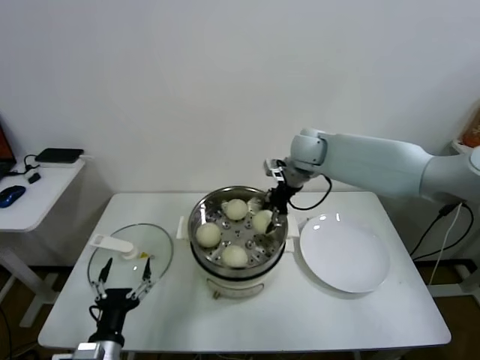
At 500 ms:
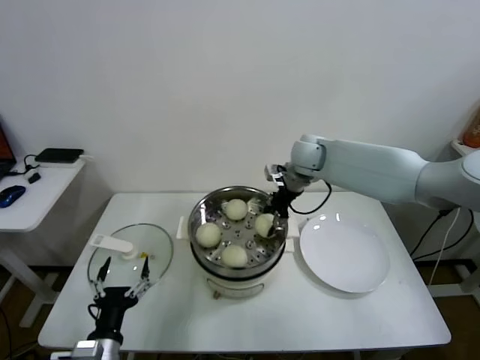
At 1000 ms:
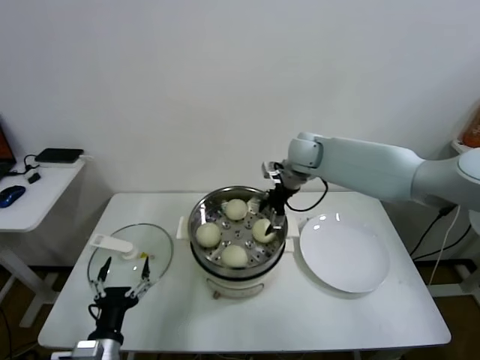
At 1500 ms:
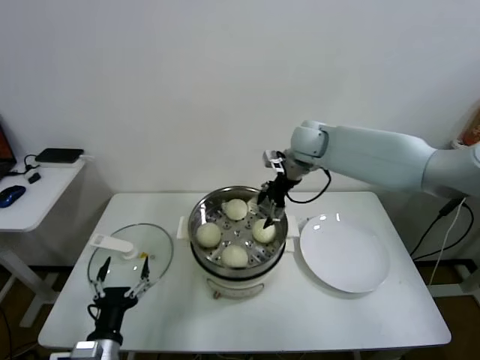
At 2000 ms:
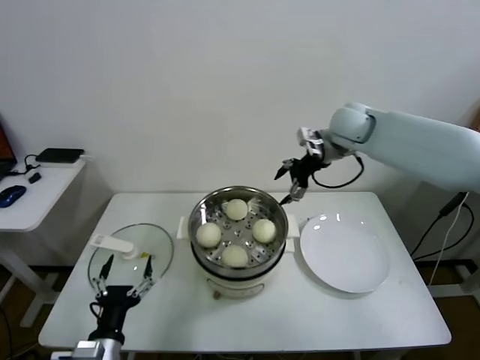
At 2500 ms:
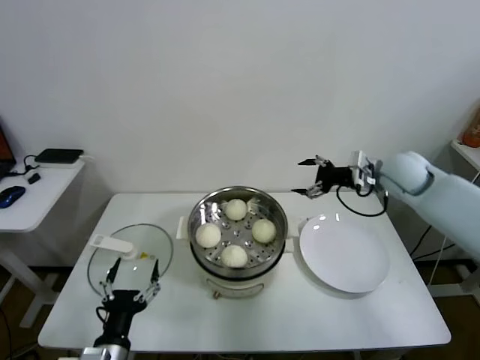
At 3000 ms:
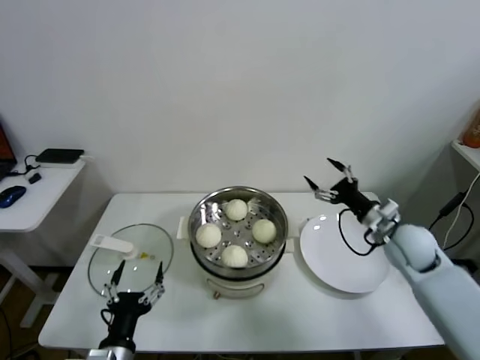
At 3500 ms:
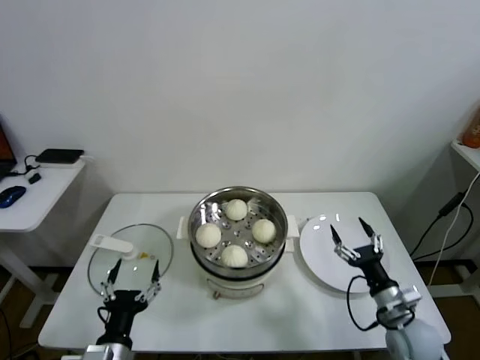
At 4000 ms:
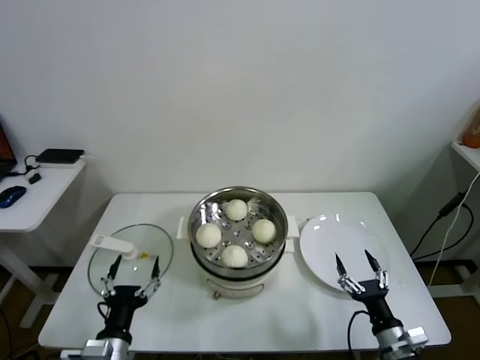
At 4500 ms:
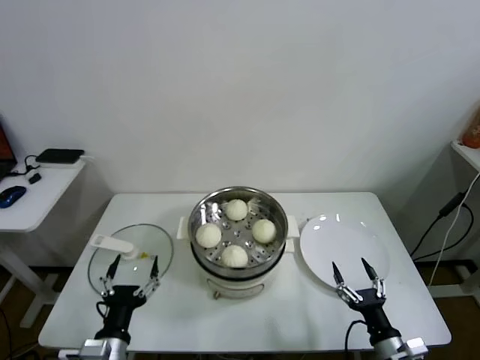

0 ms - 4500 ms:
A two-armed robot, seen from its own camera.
Task of the whole recording: take steamed baozi put them in steamer.
0 ms - 2000 ms: The right gripper goes approximately 10 cm to the right and upward, and opens its fingers.
2000 ms - 4500 ms: The right gripper goes approximately 50 cm backward and downward.

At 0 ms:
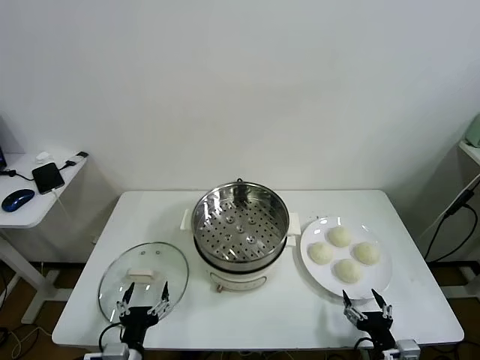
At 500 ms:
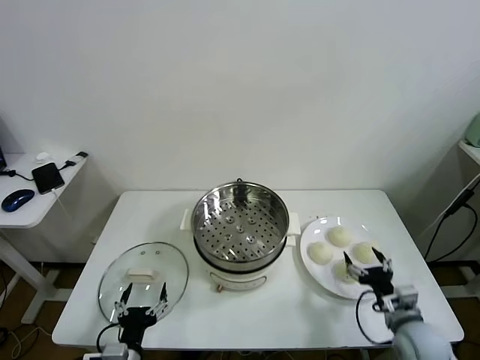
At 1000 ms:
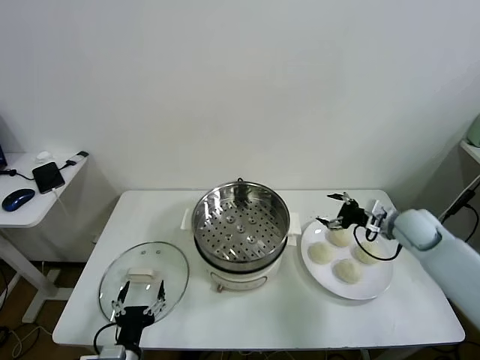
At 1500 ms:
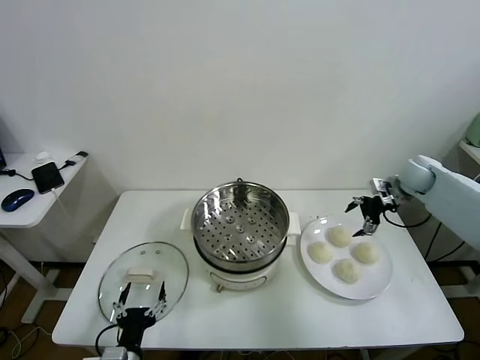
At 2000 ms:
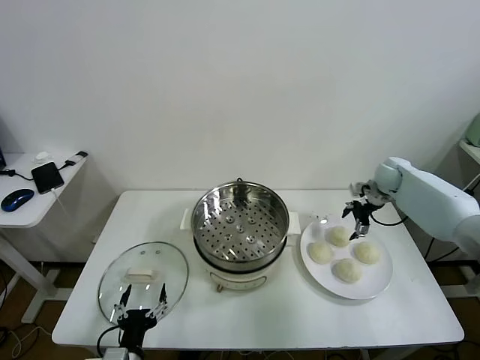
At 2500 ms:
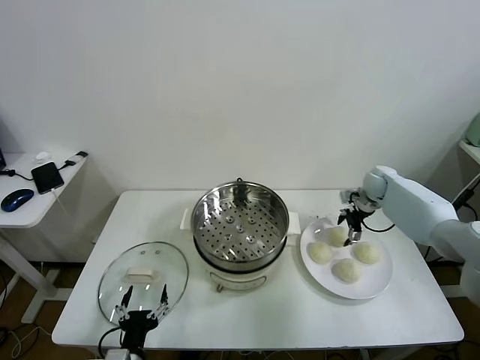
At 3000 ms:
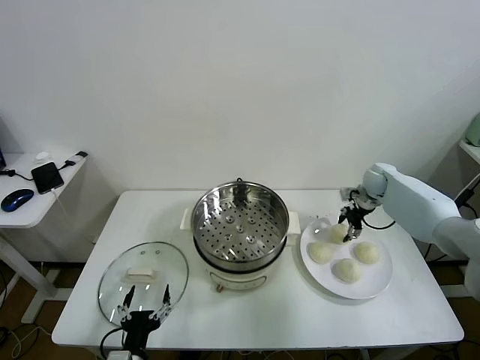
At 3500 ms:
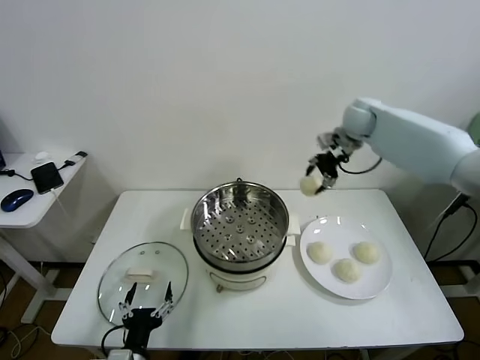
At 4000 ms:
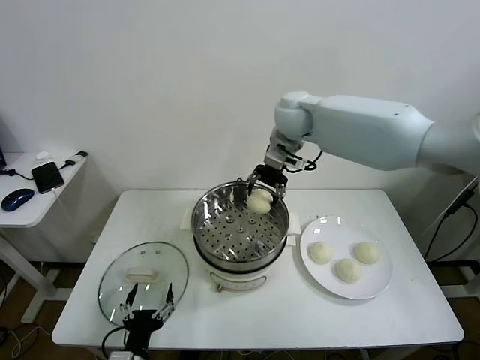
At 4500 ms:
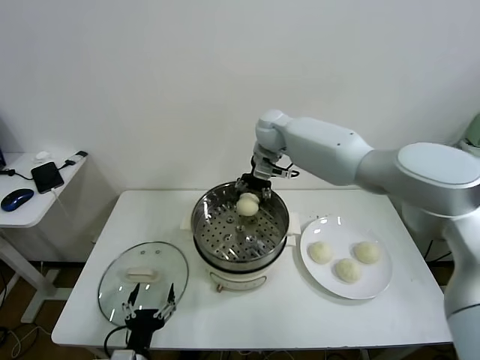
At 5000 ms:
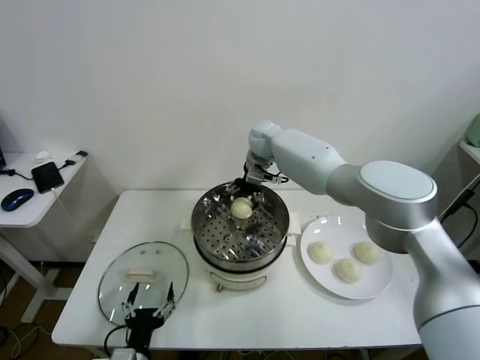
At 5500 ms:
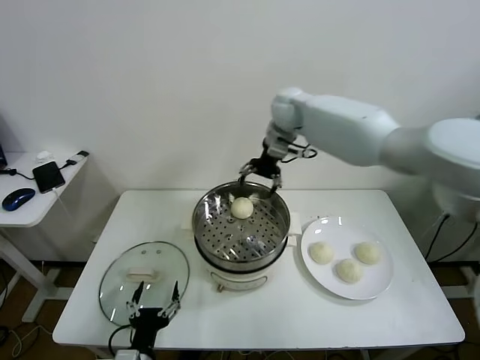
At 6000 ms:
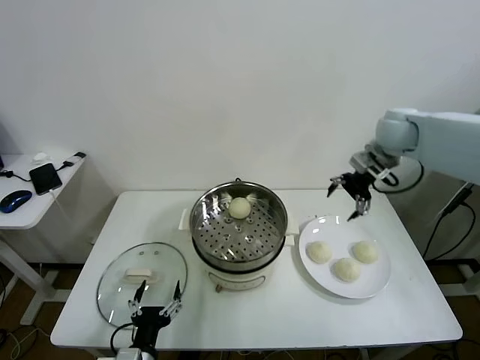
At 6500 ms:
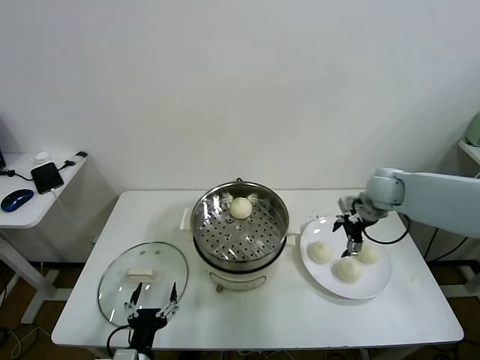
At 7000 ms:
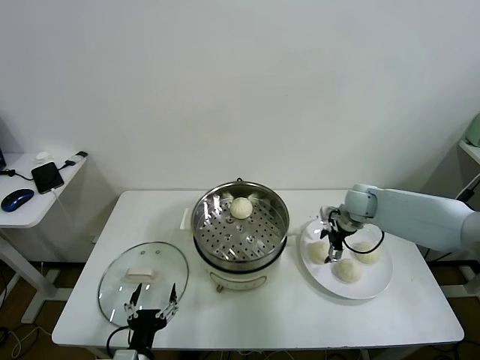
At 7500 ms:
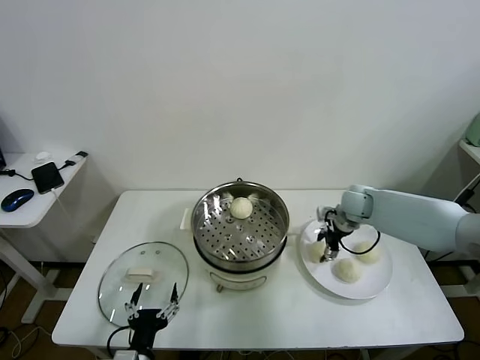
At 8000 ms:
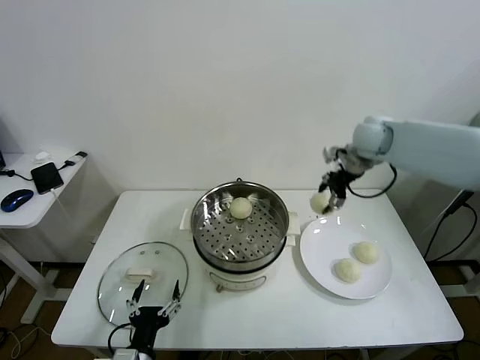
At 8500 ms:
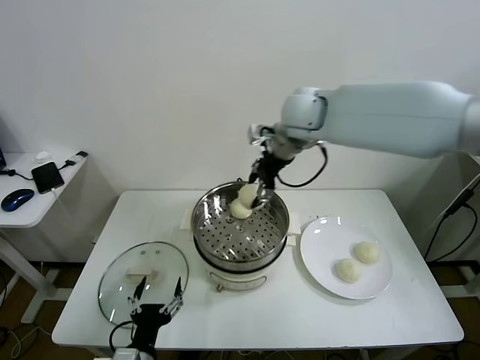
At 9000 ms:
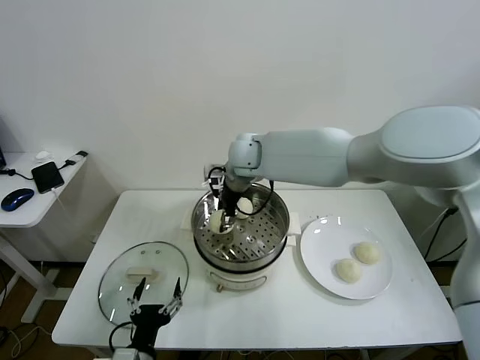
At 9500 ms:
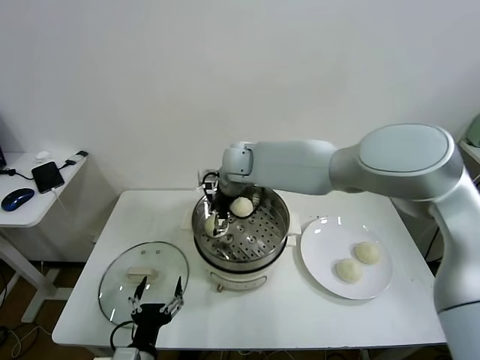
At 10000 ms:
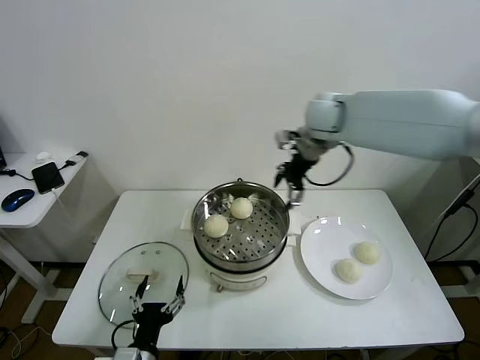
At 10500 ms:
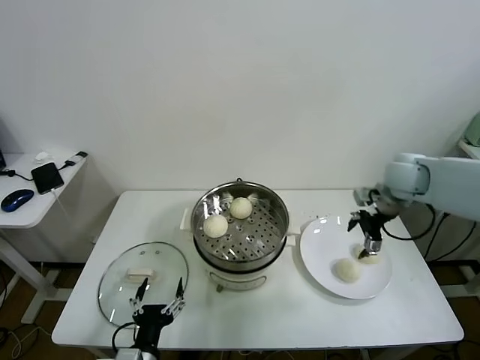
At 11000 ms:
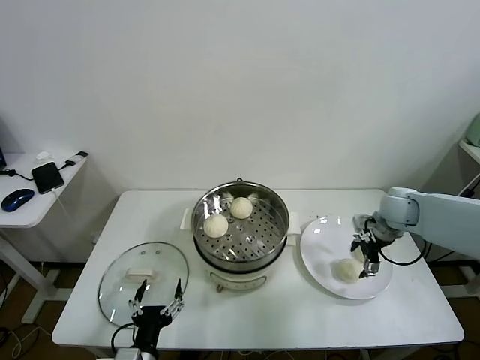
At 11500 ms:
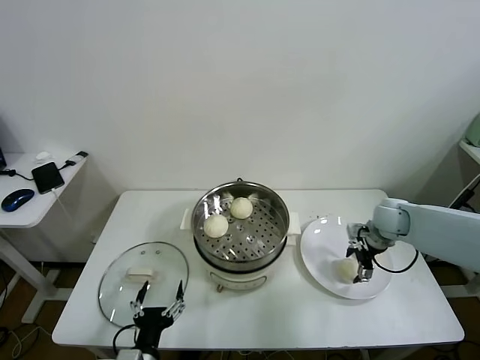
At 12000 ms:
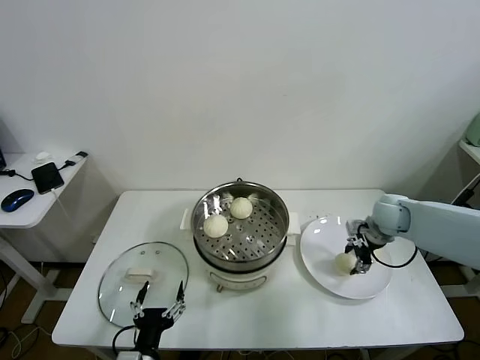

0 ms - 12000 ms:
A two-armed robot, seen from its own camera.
Task of the whole recording: take steamed baozi put them in steamer.
Step, 0 ms - 2500 ms: Grasp the baozi in the plate with right gripper.
Step, 3000 ms - 4500 ms: Place the baozi on the steamer with right gripper.
Step, 5500 ms - 7500 ms: Grasp the baozi in the plate with right gripper.
Step, 8000 ms - 9000 ms: Place the baozi on the steamer with right gripper.
Step, 9500 ms - 11500 ms: Grasp the baozi in the plate with right gripper.
2000 ms - 4000 ms: The right gripper travels to the left and upward by about 35 cm, and closes up.
4000 ms - 6000 ms: The right gripper is displaced to the right by approximately 25 cm, and opens.
6000 ms - 8000 ms: The right gripper moves to the left, about 5 cm, moves some 20 cm downward and comes back, and closes.
8000 ms - 10000 ms: The right gripper moves about 25 cm to the left and comes back, and opens.
10000 ms - 12000 ms: The right gripper moves downward and to the right, approximately 25 cm, and closes its fingers.

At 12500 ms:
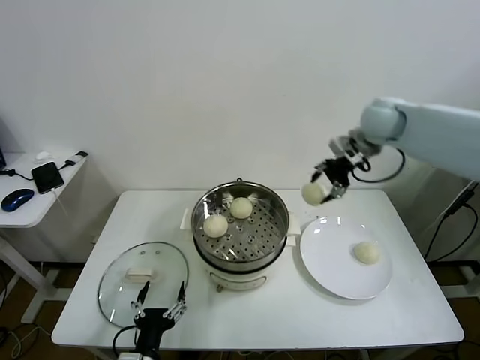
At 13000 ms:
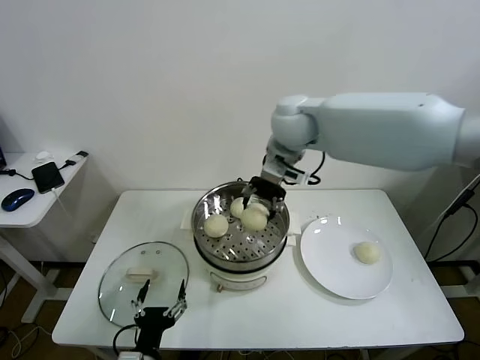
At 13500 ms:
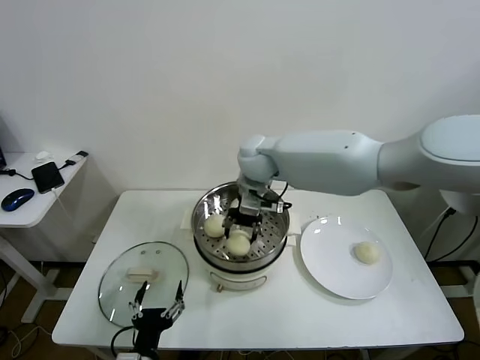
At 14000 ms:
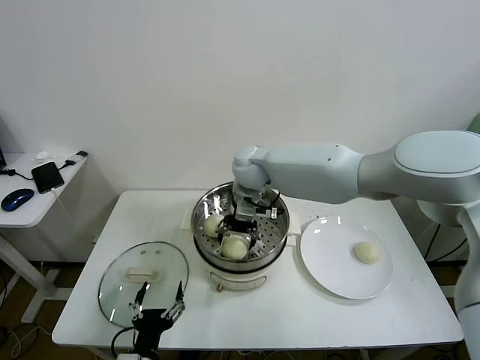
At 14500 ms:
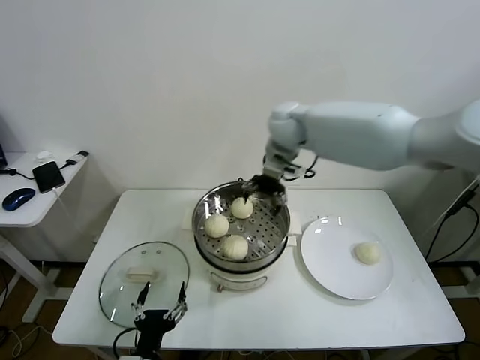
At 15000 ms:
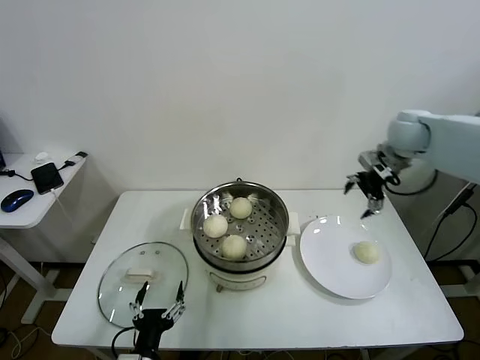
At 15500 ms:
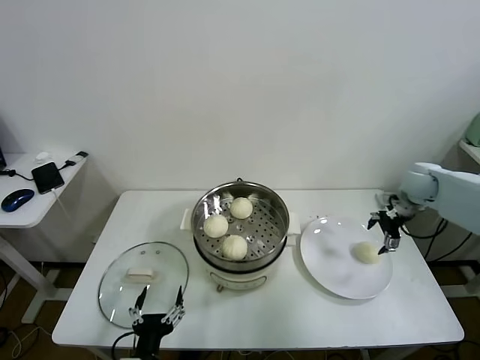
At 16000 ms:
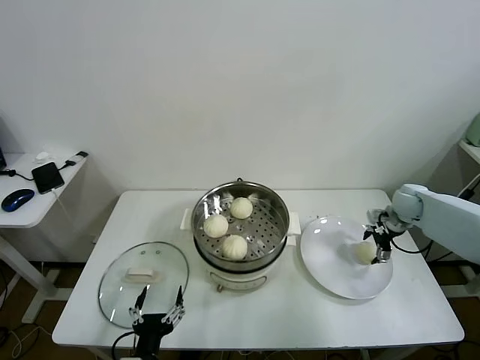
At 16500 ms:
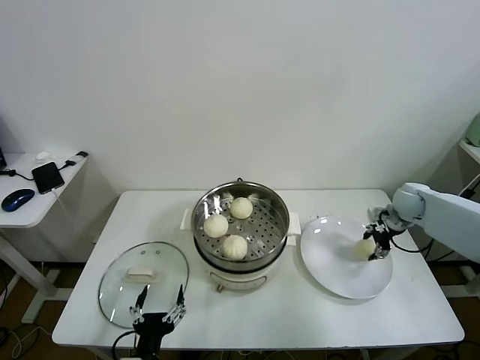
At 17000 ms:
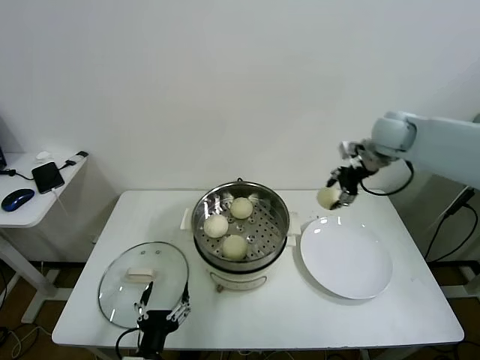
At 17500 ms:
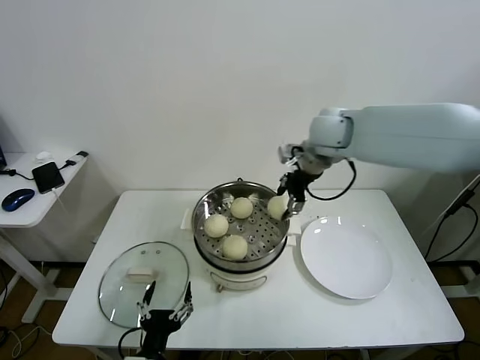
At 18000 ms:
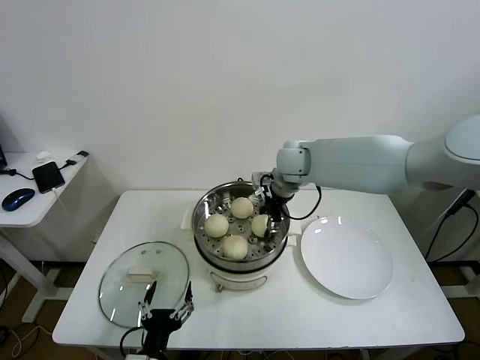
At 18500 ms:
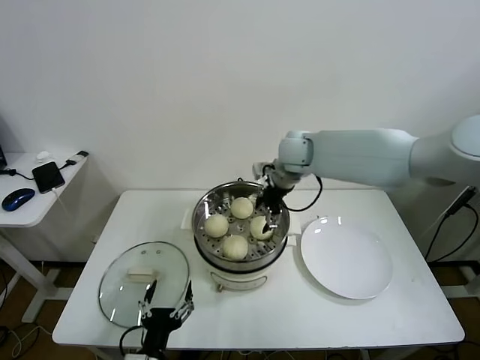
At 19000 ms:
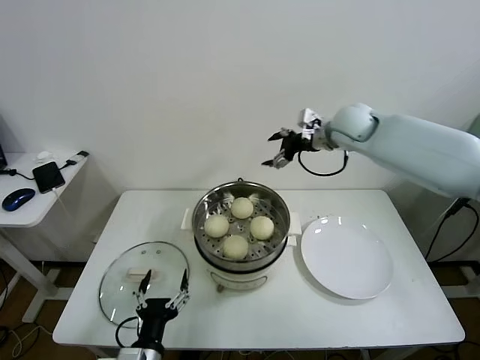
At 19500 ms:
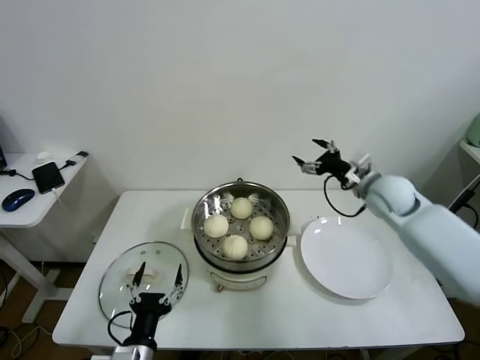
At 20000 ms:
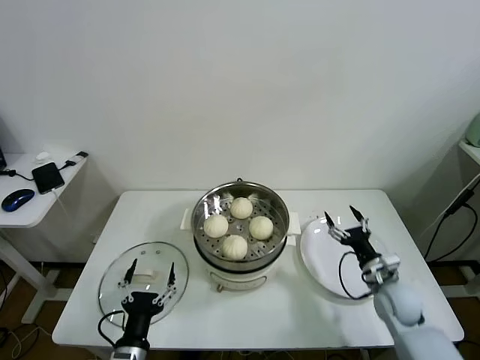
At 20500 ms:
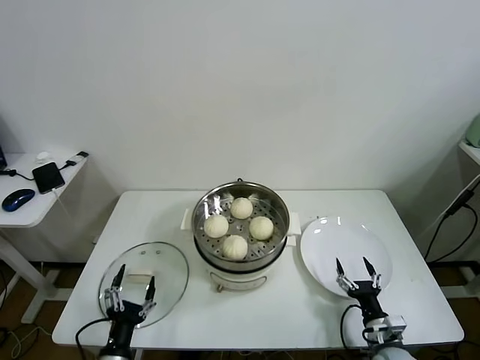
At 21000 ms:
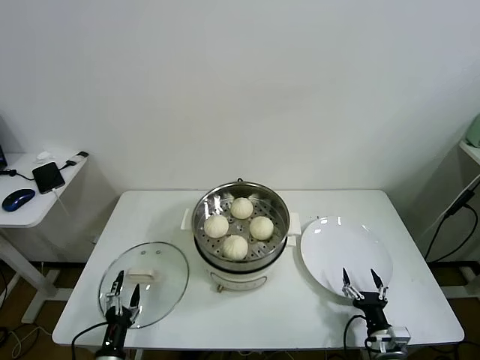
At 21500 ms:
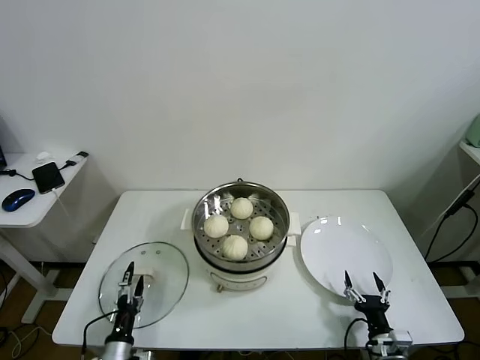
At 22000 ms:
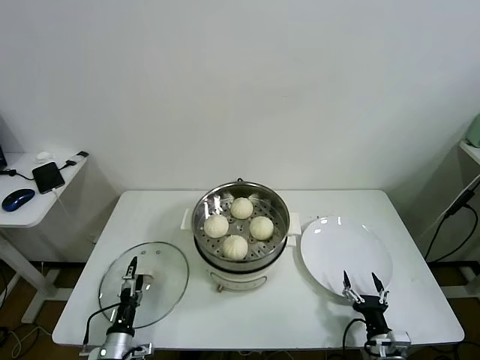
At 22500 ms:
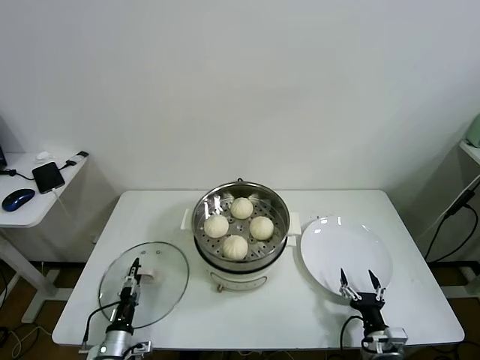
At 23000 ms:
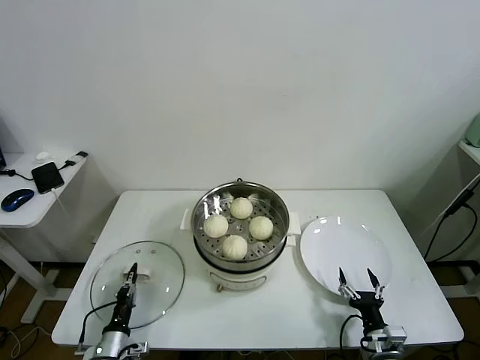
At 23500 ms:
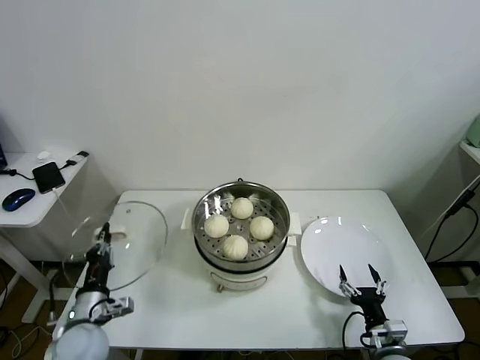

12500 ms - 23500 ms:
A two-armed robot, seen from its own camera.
Task of the whole recording: take steamed baozi put them in steamer.
Step, 12500 ms - 14000 ms: Place the baozi on the steamer with right gripper.
Step, 14500 ms - 16000 ms: Grasp the baozi in the plate with right gripper.
Step, 17000 ms - 18000 ms: Place the baozi on the steamer with right gripper.
Step, 18500 ms - 22500 ms: Grasp the pot lid with left gripper.
12500 ms - 14500 ms: The right gripper shifts roughly 15 cm to the left, and opens its fingers.
14500 ms - 16000 ms: The right gripper travels to the right and downward by roughly 40 cm.
16000 ms - 18000 ms: The right gripper shifts roughly 35 cm to the left and upward, and closes.
18000 ms - 20000 ms: The right gripper travels downward, to the right and backward by about 40 cm, and opens its fingers.
20000 ms - 21500 ms: The right gripper moves backward and downward, roughly 20 cm; the left gripper is displaced downward and to the left by roughly 15 cm.
21500 ms - 23500 ms: The left gripper goes approximately 15 cm upward and forward, and closes.
